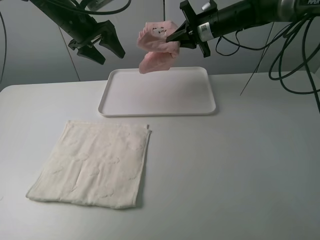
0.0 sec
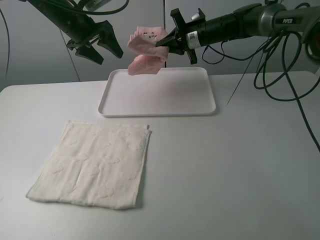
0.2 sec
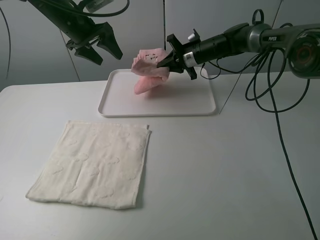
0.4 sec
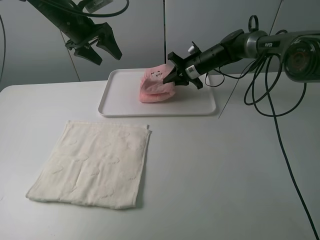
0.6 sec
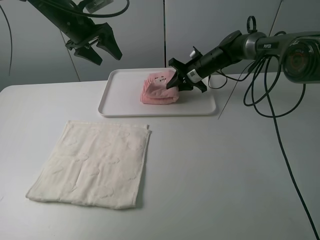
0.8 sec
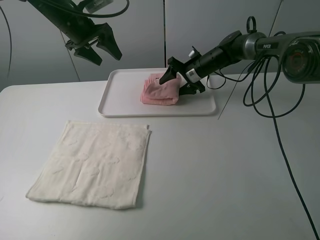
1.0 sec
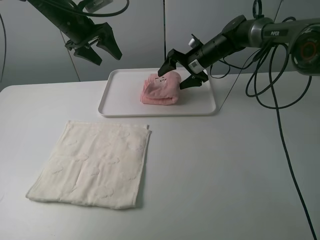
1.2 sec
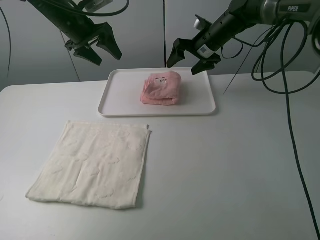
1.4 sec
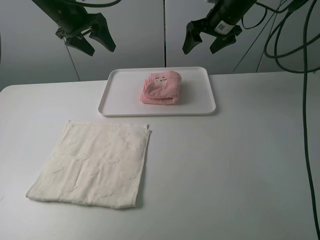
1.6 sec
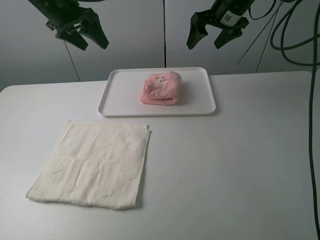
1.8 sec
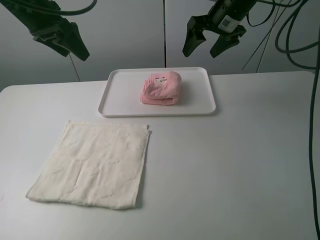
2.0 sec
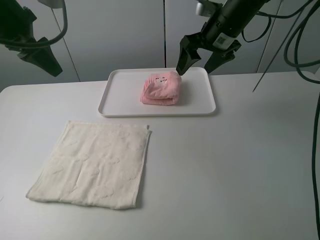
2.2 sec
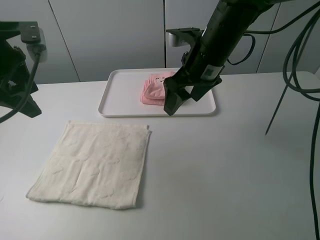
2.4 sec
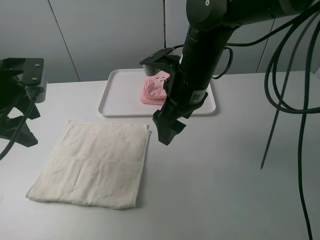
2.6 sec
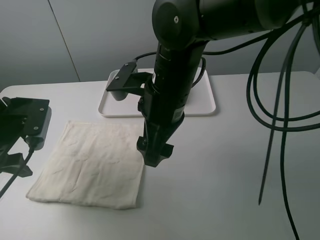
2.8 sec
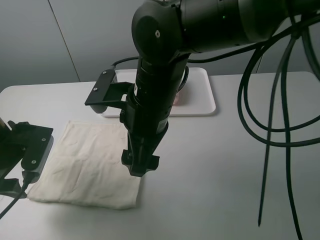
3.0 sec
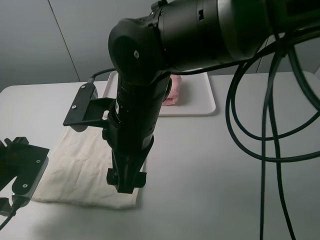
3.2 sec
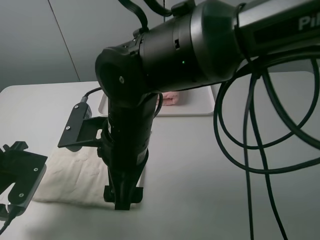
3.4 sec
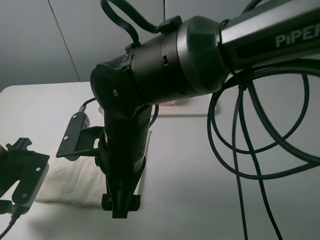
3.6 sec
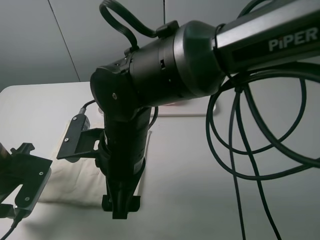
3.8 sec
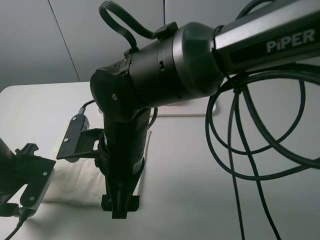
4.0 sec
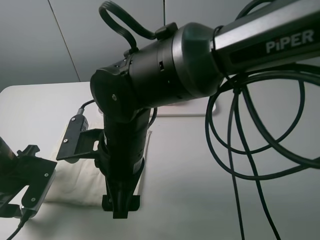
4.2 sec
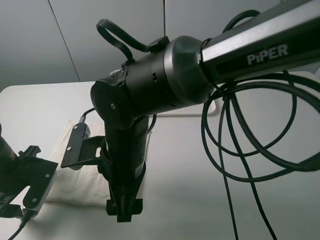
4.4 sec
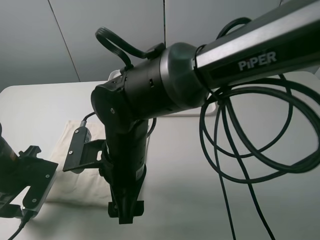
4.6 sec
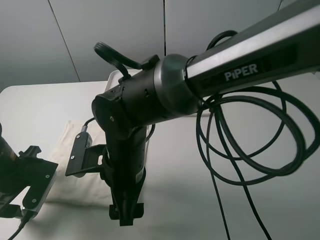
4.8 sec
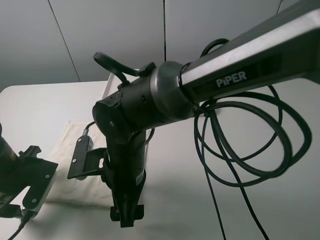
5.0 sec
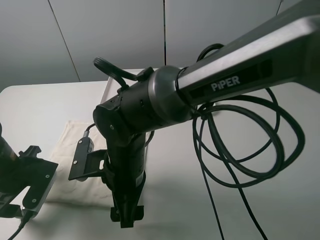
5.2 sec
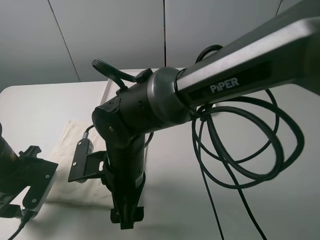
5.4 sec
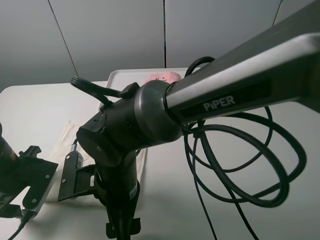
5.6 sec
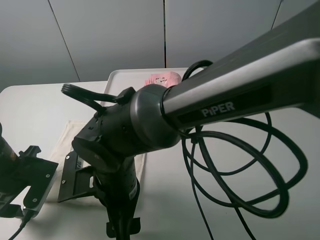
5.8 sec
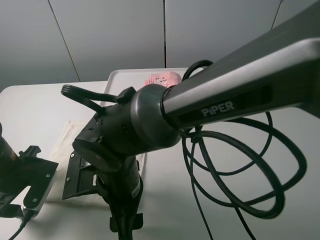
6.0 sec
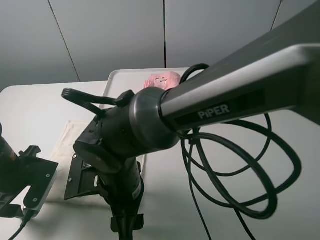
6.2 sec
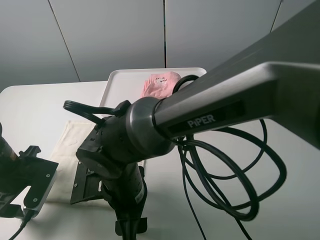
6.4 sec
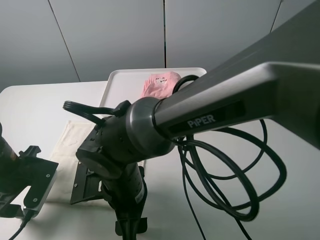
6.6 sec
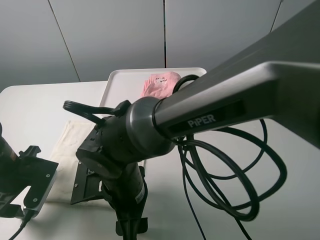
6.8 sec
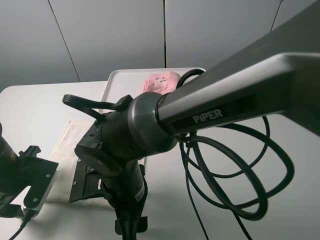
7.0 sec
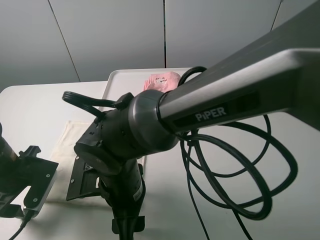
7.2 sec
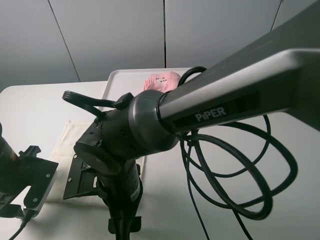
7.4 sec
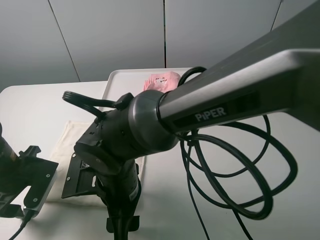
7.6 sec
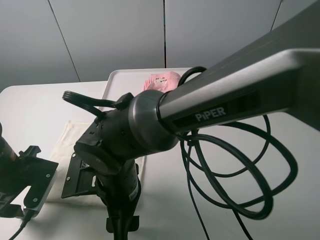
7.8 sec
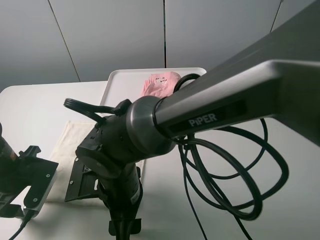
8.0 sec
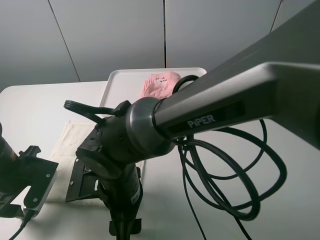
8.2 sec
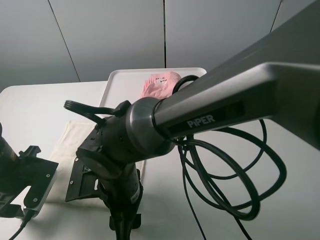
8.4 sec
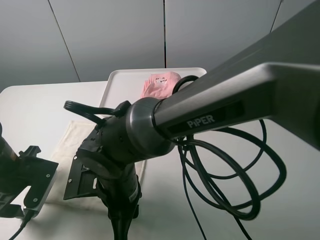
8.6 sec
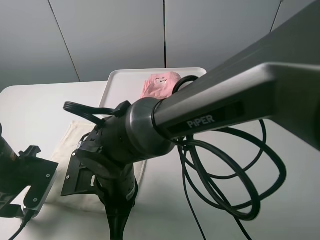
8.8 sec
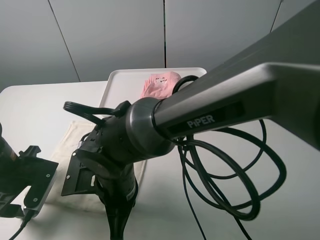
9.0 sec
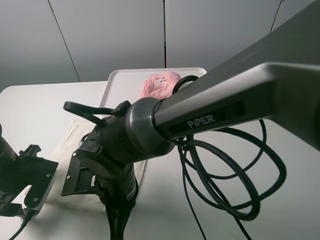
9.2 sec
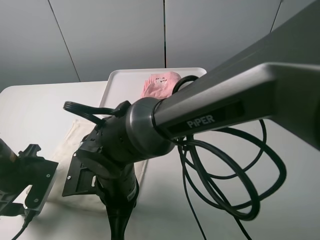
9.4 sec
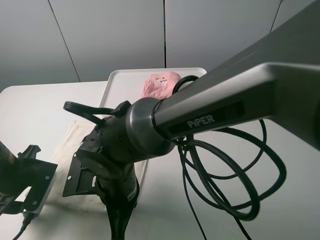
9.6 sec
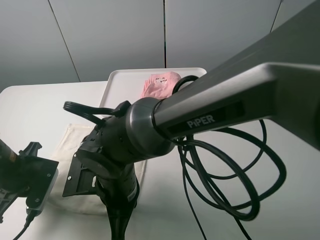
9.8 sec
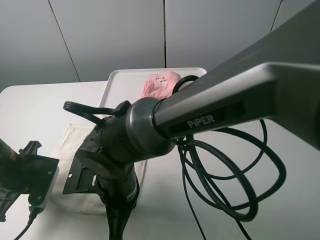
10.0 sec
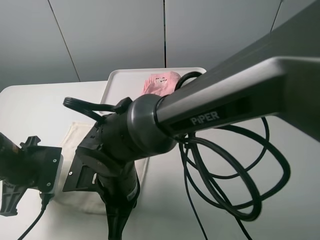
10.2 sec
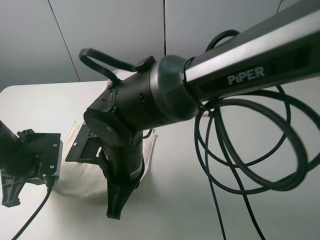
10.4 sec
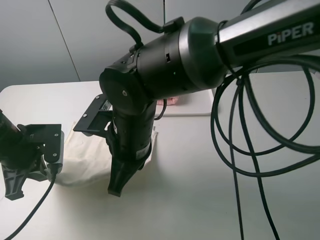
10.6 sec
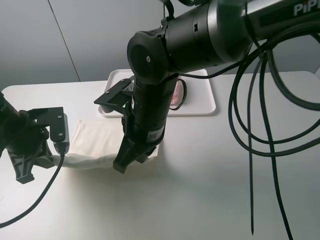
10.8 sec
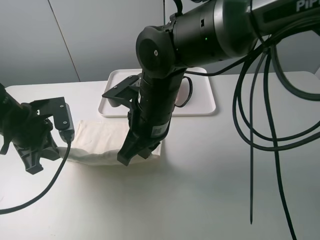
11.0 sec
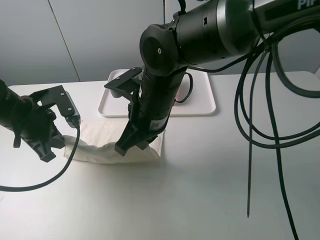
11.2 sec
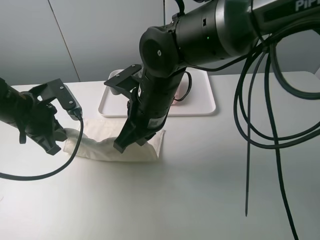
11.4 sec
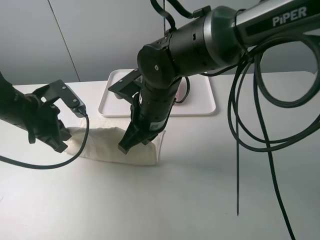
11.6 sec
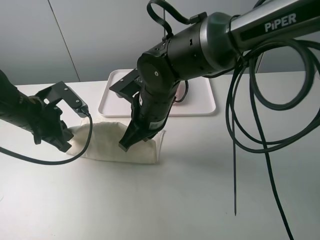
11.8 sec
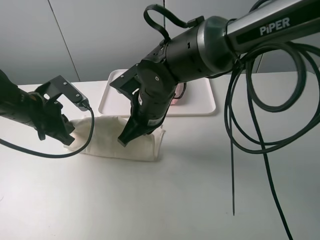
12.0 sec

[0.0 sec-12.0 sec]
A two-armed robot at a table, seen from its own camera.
Task of the whole recording: fold one of the towels by two grippers and place it on the tray,then fold another towel by two grippers and place it on the folded towel.
Step, 1.4 sec to 9.6 sec: Grasp the white towel with the left gripper.
0.0 sec to 1.6 sec: The right gripper travels downward and back again, roughly 10 cm each way, and opens its fingers.
1.6 sec to 3.0 sec: The left gripper is displaced backward and downward by approximately 30 cm; the right gripper goes approximately 30 cm backward and to the left.
3.0 sec to 4.4 sec: Both grippers travel together downward, roughly 5 cm.
6.0 sec to 7.6 sec: The grippers move only a little.
7.6 sec to 9.0 sec: The right gripper closes up.
9.0 sec to 10.4 sec: The left gripper closes, while the right gripper moves upward, approximately 5 cm.
10.4 sec to 12.0 sec: Both grippers move forward, approximately 10 cm.

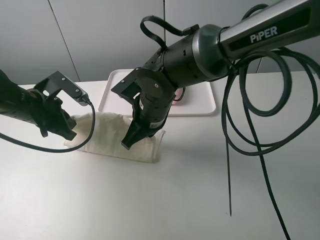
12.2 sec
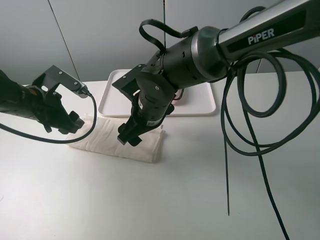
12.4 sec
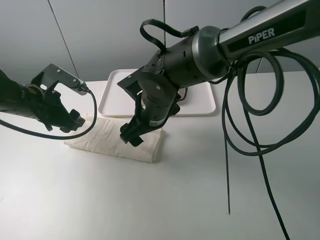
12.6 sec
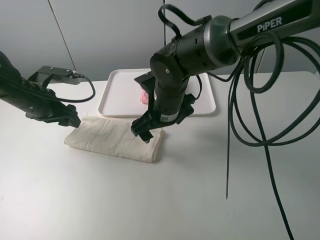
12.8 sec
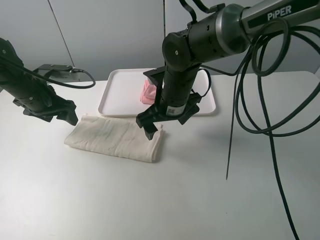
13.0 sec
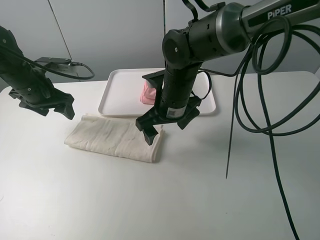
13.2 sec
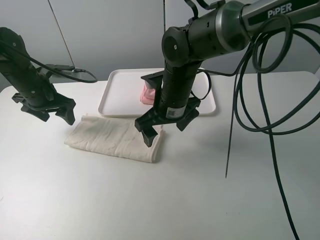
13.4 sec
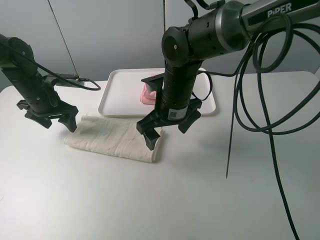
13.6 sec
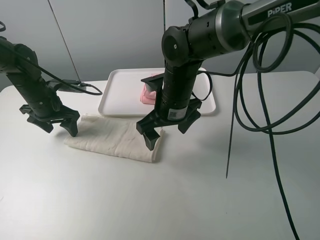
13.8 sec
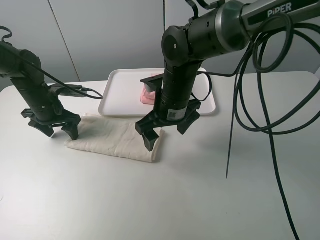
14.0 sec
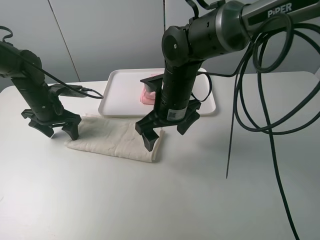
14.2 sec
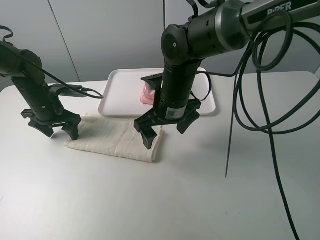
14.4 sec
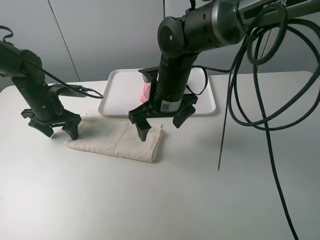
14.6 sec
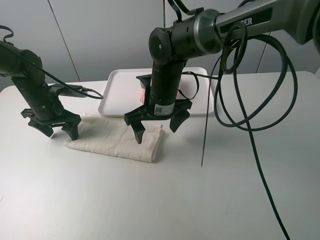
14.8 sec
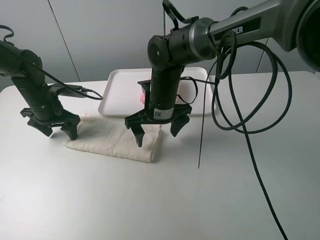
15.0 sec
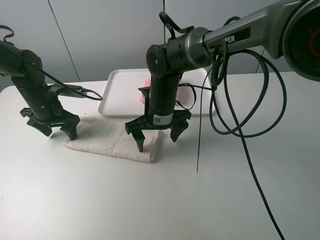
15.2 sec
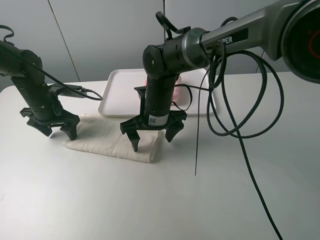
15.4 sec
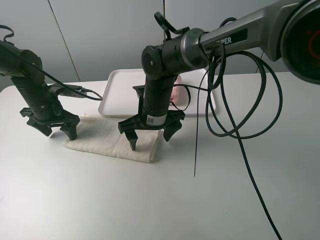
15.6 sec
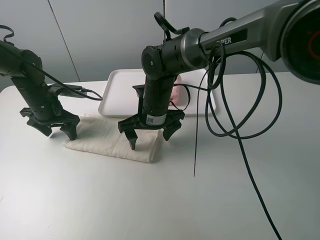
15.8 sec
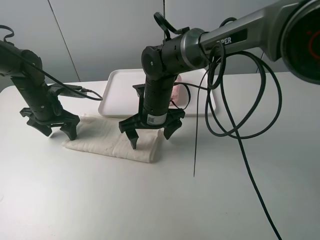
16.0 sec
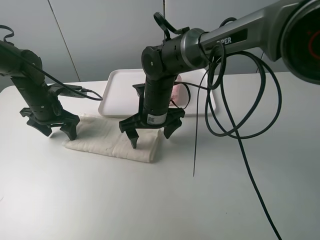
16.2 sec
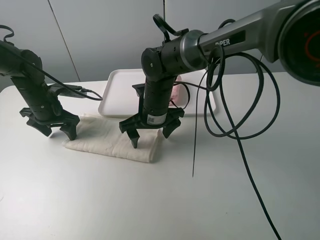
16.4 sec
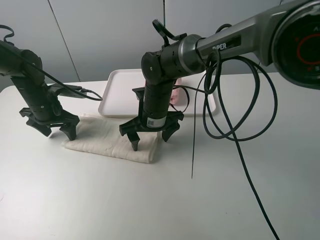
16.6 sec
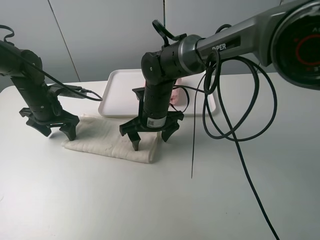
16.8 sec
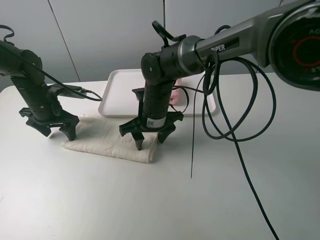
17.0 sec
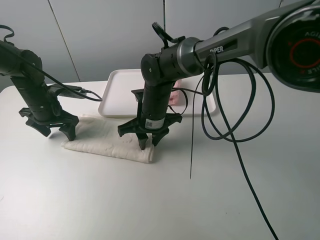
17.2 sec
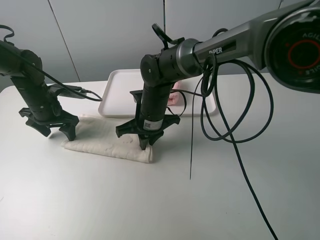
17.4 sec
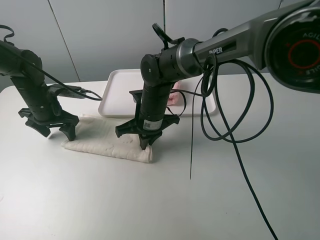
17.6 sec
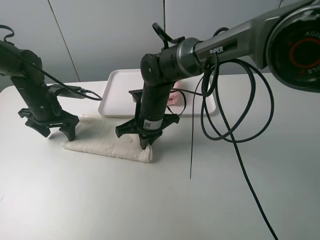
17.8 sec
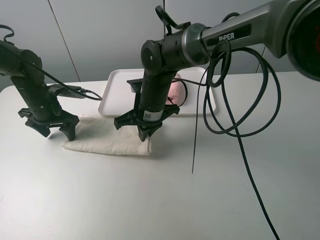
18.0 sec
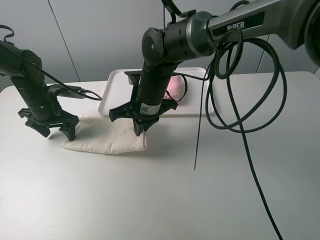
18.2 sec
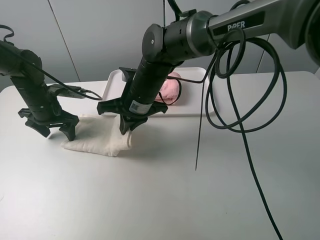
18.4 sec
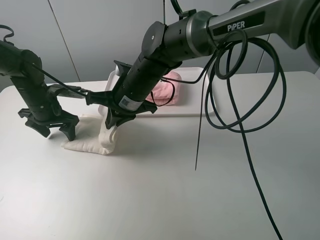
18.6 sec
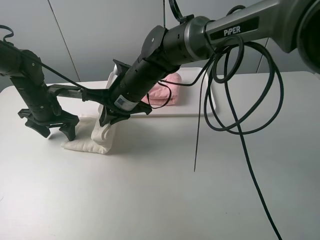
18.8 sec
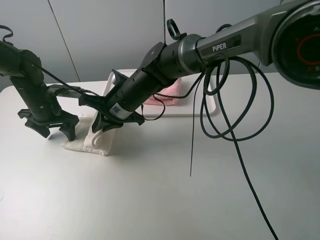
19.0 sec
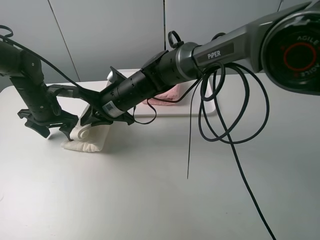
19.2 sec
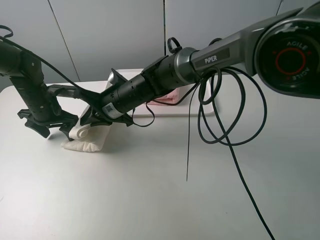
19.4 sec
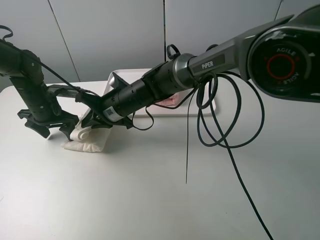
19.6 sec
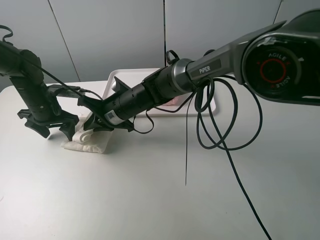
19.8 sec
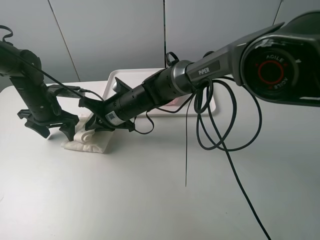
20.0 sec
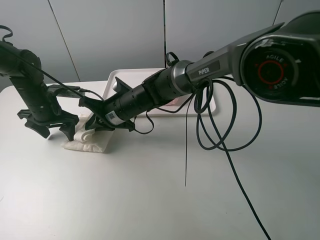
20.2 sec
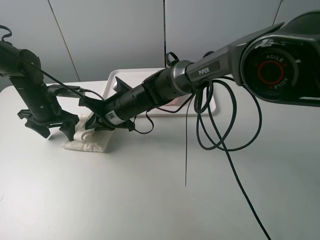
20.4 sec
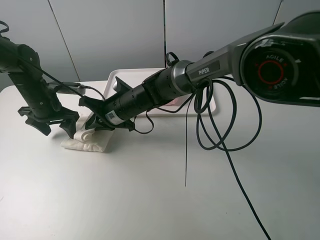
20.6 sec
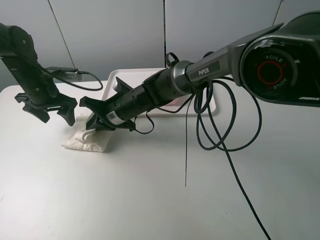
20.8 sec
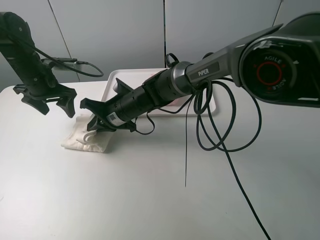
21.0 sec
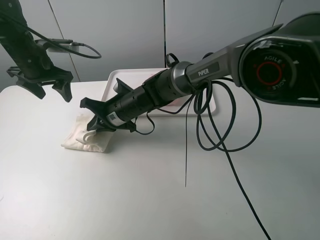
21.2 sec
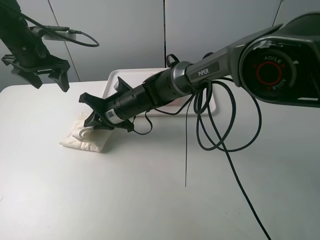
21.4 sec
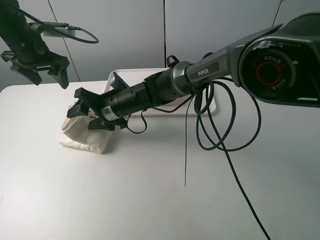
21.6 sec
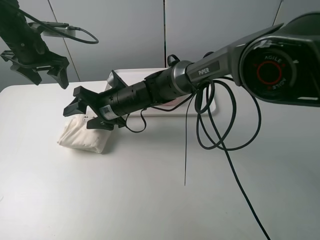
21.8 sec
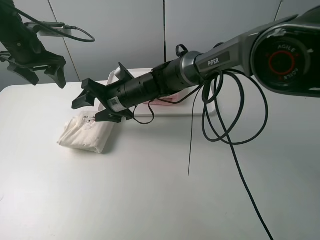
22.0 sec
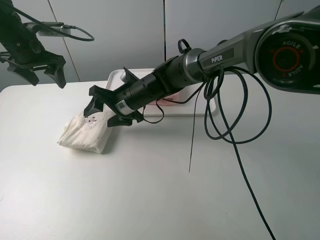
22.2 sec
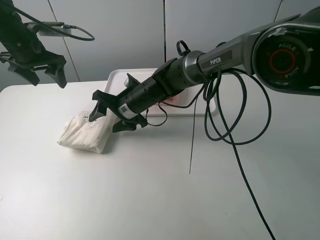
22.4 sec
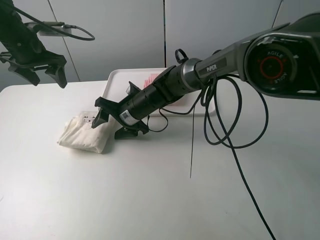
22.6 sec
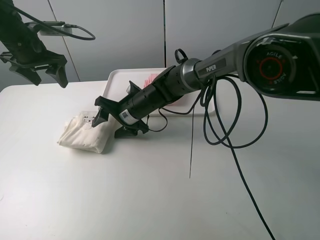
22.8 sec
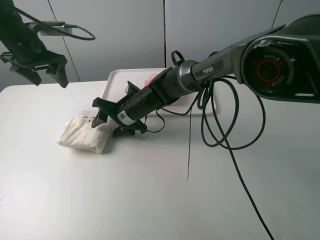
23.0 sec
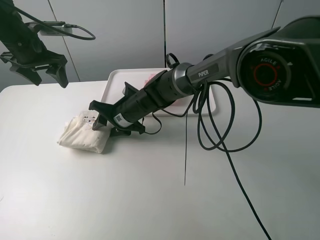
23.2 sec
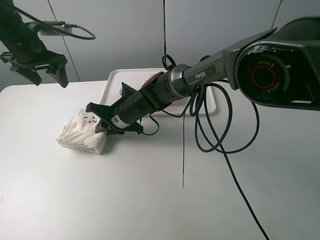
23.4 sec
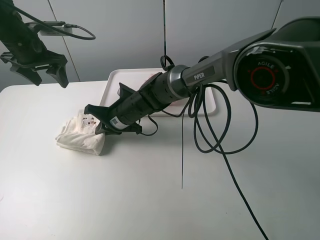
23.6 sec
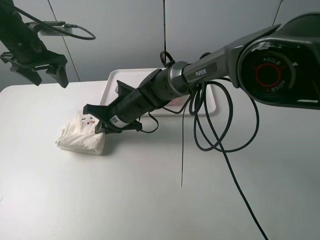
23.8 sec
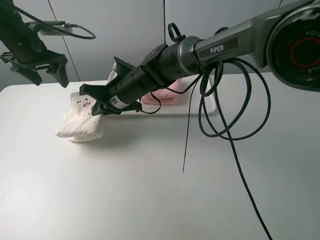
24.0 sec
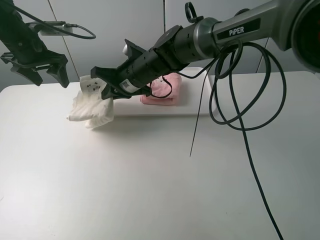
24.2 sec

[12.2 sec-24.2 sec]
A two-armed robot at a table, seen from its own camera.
Task of the whole recording: fold one of the towels by two grippers and place it on the tray,then fold another towel by two grippers and place it on the folded towel.
Step, 13.0 sec to 14.0 sec: Press the white towel with the left gripper.
Step, 14.2 sec to 17.4 sec: Grasp the white towel with the right gripper.
Step, 17.6 sec to 21.8 sec: Fold the white towel from right to left with right gripper.
Step, 22.0 sec to 23.4 sec: Grasp the white towel with the right gripper.
12.2 sec to 13.8 sec: The left gripper goes about 10 cm forward, and opens up, while the right gripper opens up.
13.8 sec to 15.2 sec: The right gripper shifts by some 5 cm.
15.2 sec to 16.6 sec: There are only small adjustments of the grippers.
16.6 sec to 18.2 sec: The right gripper closes.
18.2 sec to 19.8 sec: The right gripper heads to the left and downward, covering approximately 10 cm.
19.8 sec to 21.2 sec: The left gripper heads upward, covering roughly 10 cm.
21.2 sec to 22.6 sec: The right gripper opens up.
22.6 sec to 24.2 sec: The right gripper moves upward, some 10 cm, and closes up.
